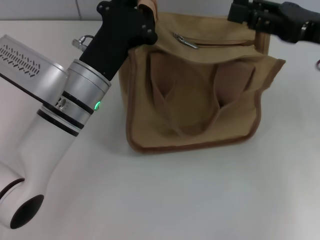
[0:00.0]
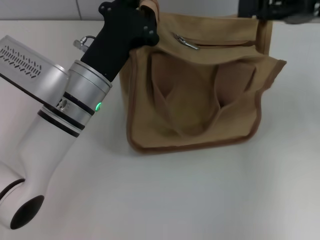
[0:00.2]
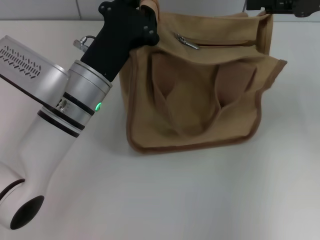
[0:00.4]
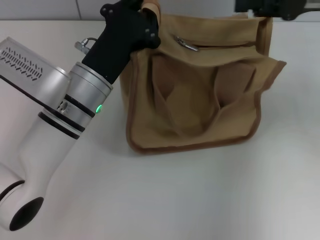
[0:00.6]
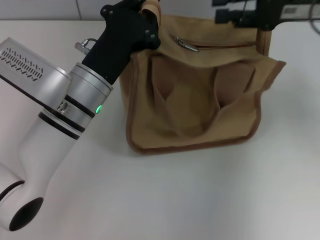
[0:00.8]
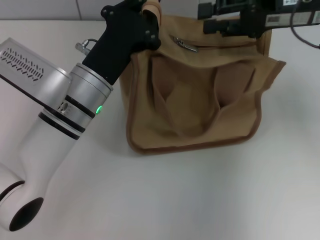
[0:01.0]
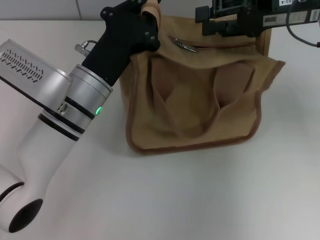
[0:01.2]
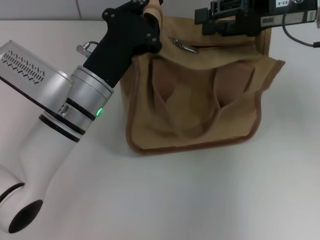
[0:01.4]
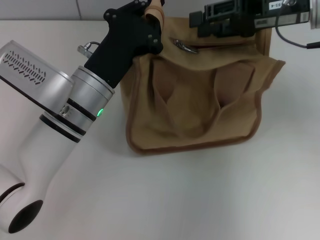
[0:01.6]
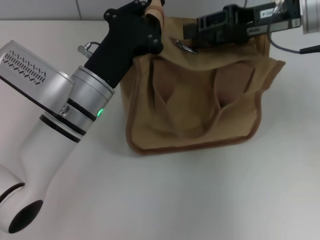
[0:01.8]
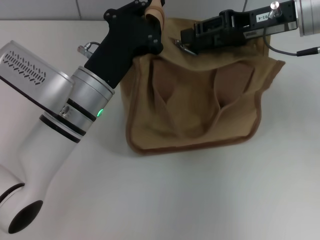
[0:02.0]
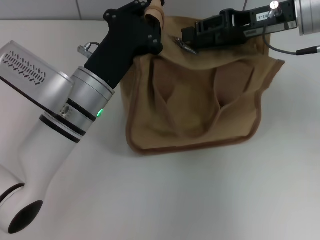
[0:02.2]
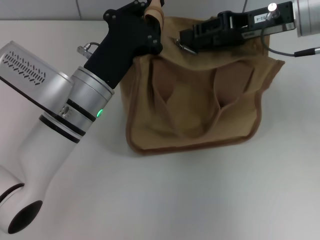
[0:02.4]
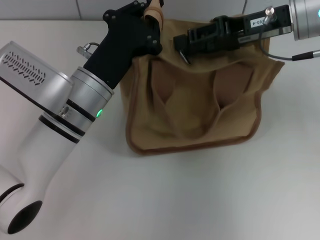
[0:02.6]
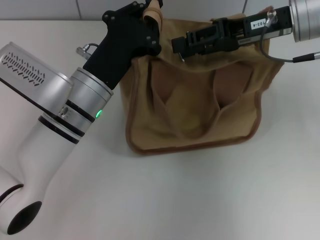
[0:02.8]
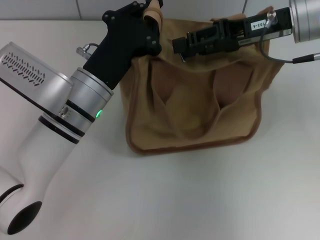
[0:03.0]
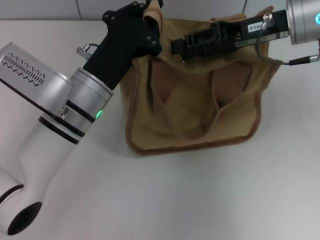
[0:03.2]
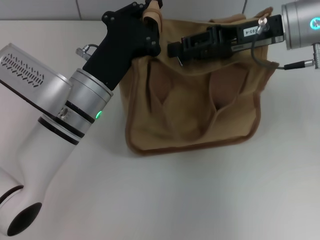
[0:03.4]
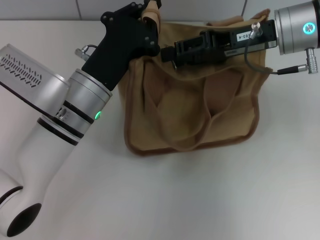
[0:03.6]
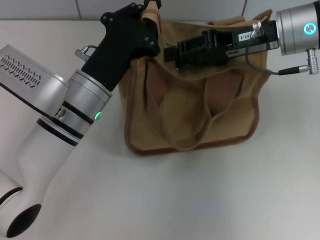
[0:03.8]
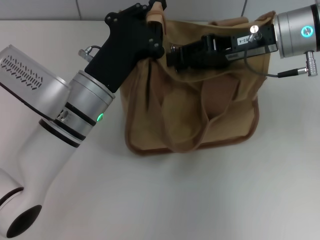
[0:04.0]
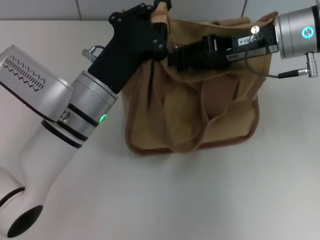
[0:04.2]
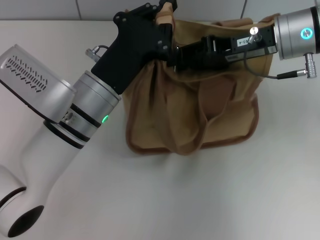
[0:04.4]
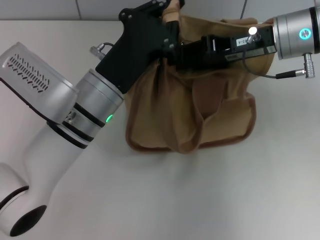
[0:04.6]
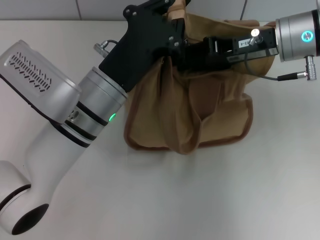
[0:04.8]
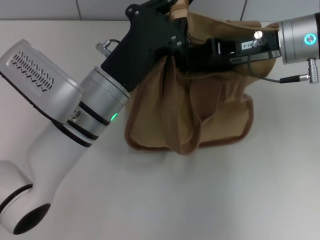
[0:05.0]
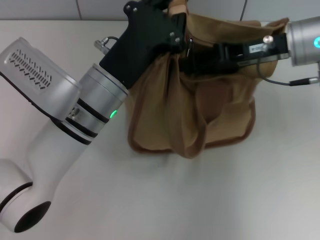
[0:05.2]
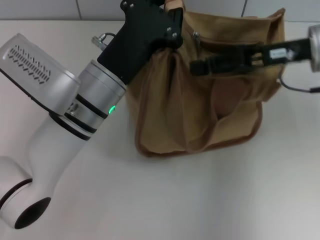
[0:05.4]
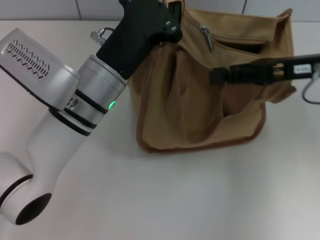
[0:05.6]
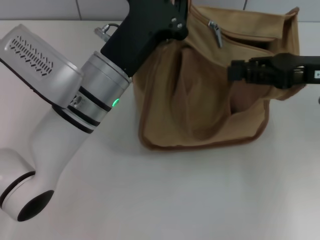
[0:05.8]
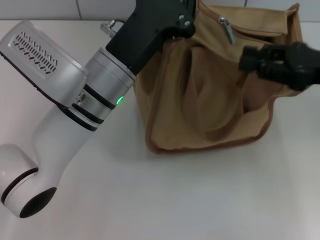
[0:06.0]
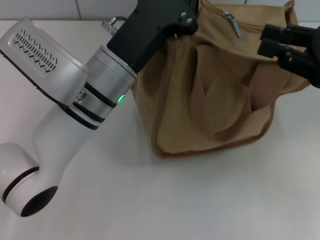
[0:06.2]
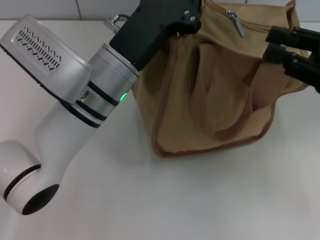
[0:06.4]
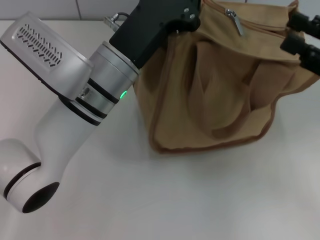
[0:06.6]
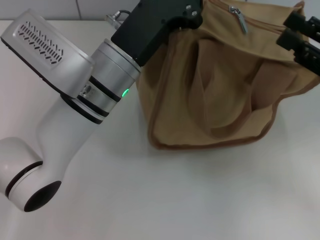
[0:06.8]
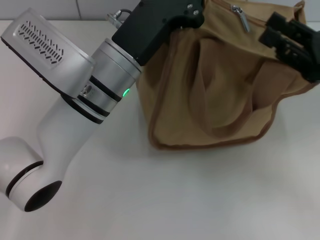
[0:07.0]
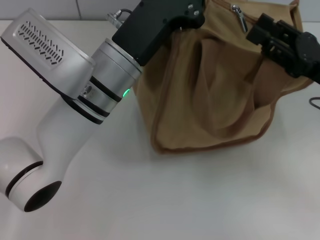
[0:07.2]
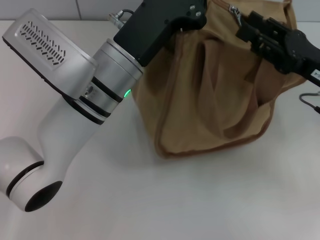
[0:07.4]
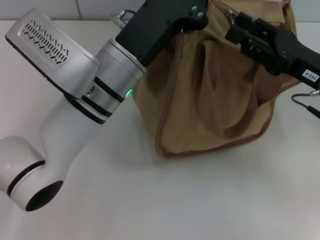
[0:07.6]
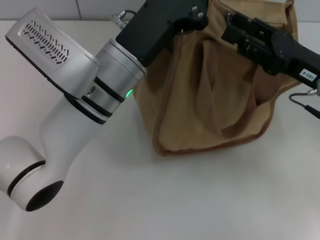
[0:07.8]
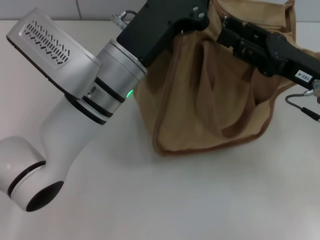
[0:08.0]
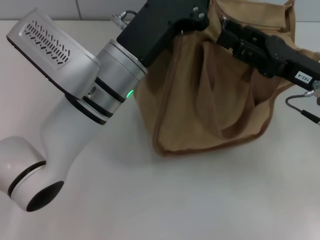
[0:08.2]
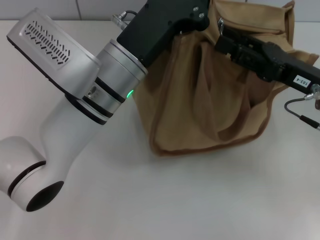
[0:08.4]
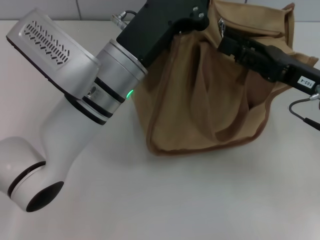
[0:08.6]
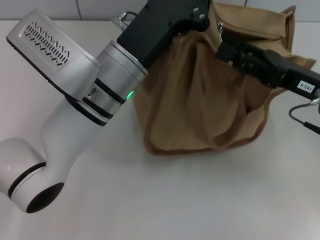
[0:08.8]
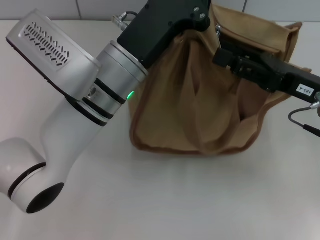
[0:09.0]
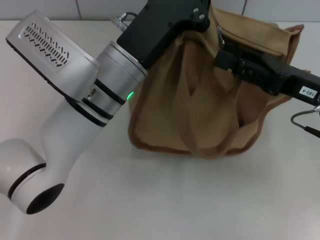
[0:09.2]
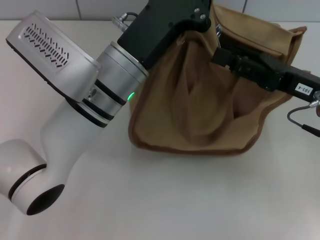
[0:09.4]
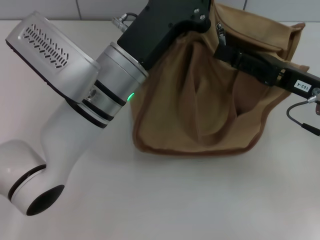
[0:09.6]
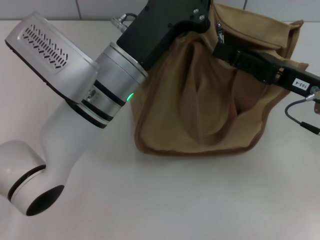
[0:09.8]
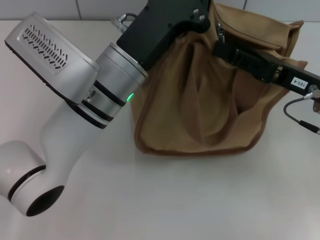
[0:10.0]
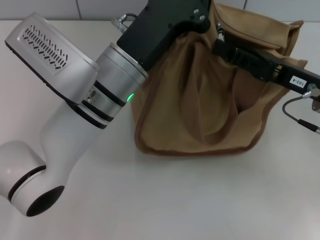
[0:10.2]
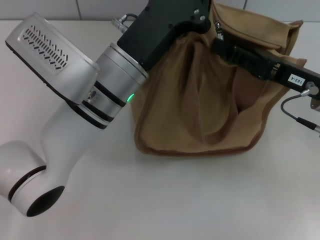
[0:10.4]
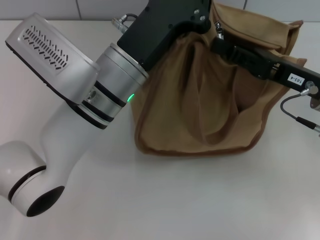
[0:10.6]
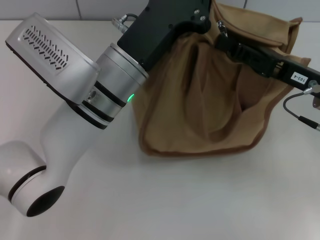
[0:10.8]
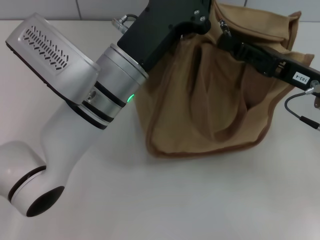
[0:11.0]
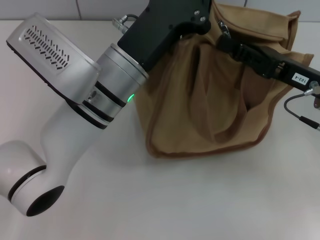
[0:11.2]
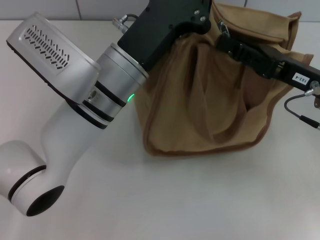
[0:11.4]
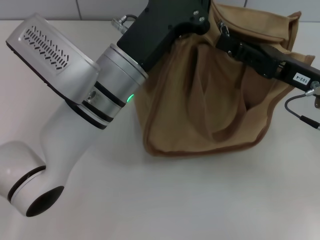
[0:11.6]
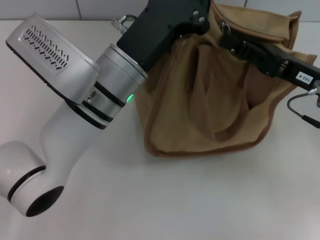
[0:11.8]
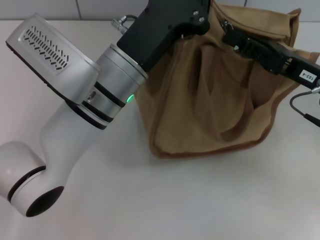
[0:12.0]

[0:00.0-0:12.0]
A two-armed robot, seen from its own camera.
0:00.0 to 0:01.6: The right gripper is displaced forward by some 5 cm.
0:01.6 to 0:04.4: The grippers stay close to where they were, moving slightly.
0:04.4 to 0:06.0: The right gripper is displaced to the right and backward by some 15 cm.
0:06.0 to 0:07.6: The right gripper shifts roughly 5 cm downward.
0:07.6 to 0:10.4: The grippers move only a little.
0:10.4 to 0:12.0: Both grippers stay about where they are.

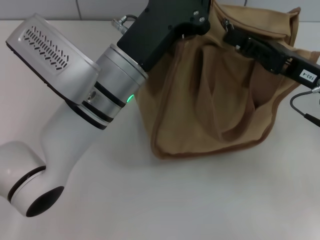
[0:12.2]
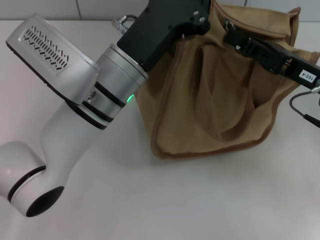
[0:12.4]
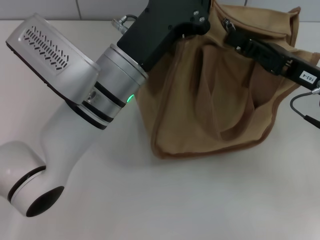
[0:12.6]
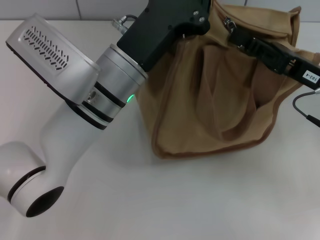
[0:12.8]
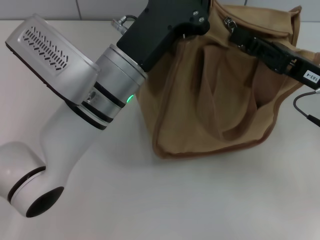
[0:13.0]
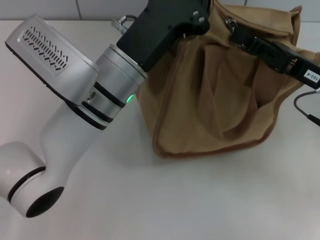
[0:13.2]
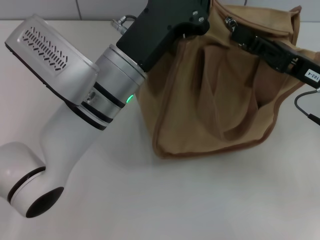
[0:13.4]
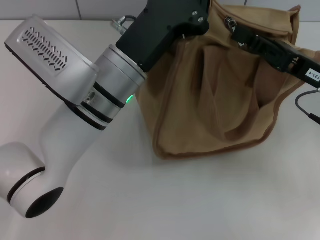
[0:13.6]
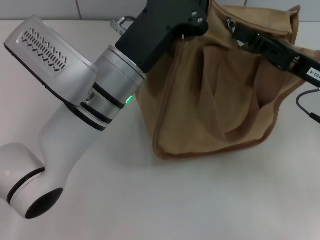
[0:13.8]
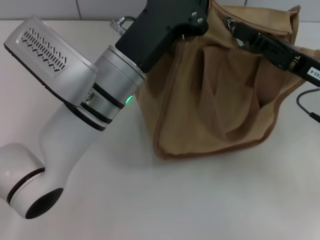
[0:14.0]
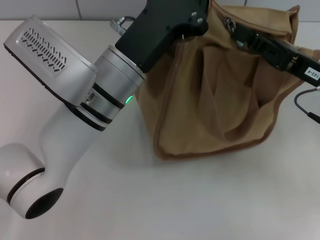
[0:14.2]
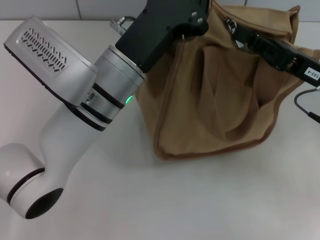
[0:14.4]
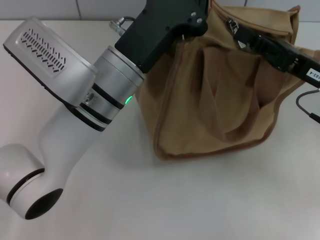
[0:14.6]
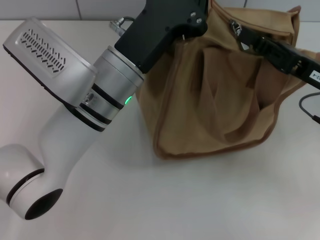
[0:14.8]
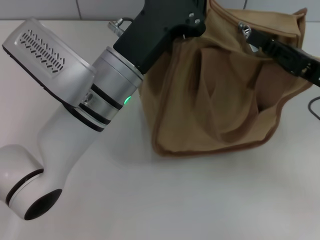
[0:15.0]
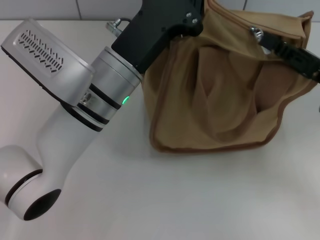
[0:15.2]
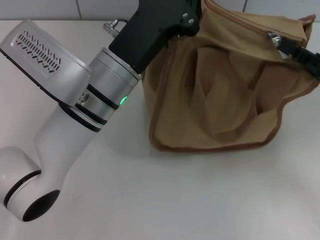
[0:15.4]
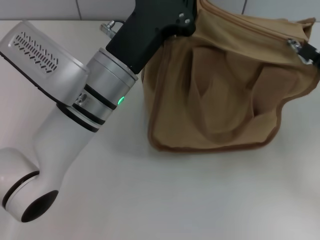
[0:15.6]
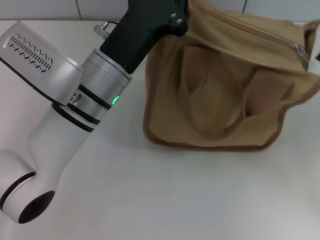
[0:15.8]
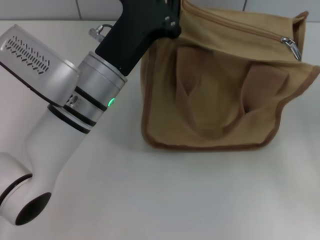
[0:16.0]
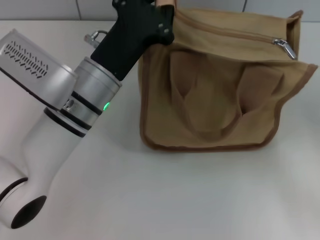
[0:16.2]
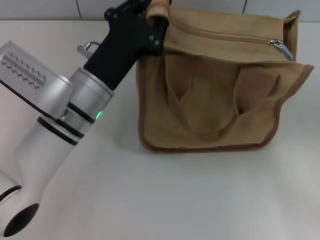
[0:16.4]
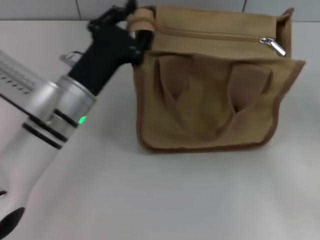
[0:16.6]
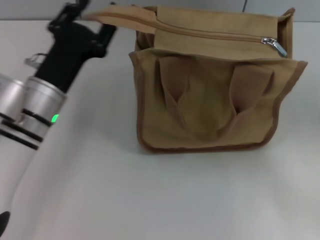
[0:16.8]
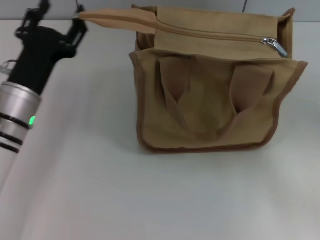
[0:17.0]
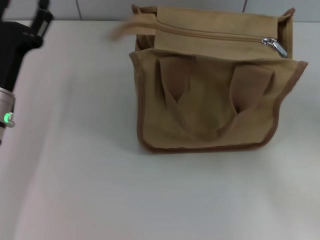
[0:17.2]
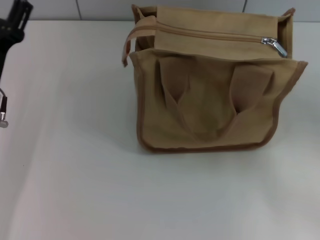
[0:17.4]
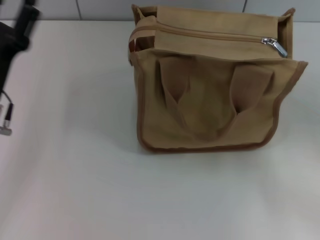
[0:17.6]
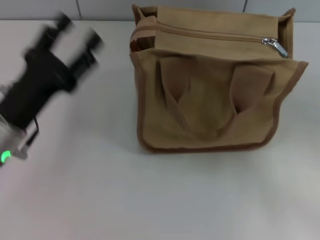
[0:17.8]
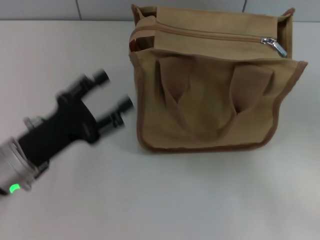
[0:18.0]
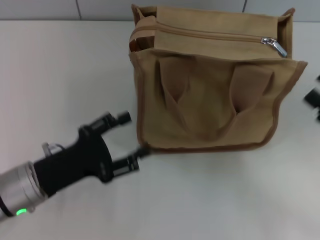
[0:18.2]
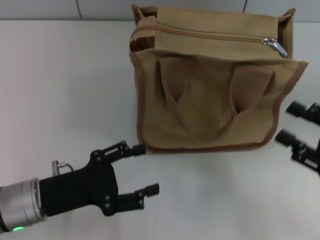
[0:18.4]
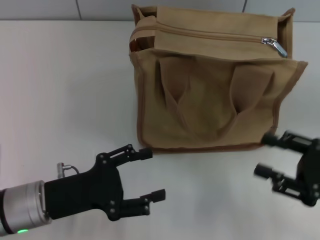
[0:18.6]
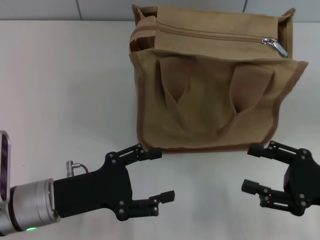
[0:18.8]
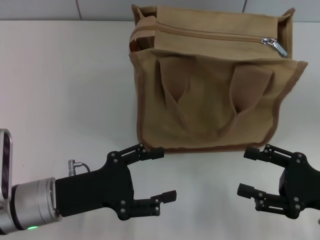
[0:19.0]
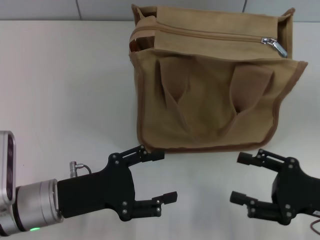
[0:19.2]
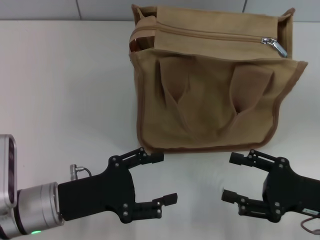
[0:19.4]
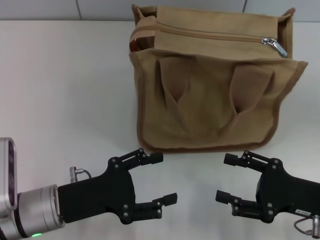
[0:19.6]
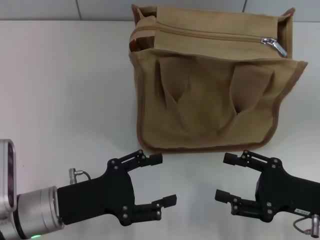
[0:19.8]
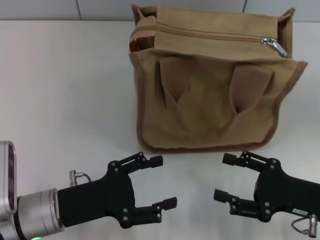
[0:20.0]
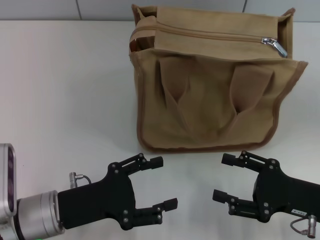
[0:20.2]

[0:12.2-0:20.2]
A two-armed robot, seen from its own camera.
Step, 0:12.2 to 0:15.6: Pull up the zipper with your right hand.
Step, 0:15.8 to 0:17.0: Grab the zipper with your left hand.
0:12.2 to 0:13.8: Both grippers stay about where they are.
0:13.8 to 0:15.4: The right gripper heads to the right, covering roughly 5 cm.
0:15.4 to 0:17.0: The right gripper moves backward, some 5 cm, and opens; the left gripper goes approximately 15 cm to the left and downward, and opens.
0:17.0 to 0:18.6: The right gripper moves roughly 5 cm. Meanwhile the left gripper is displaced backward by some 10 cm, and opens.
0:18.6 to 0:20.2: The right gripper ends up roughly 5 cm from where it was.

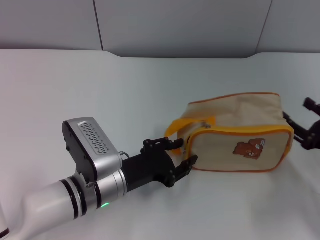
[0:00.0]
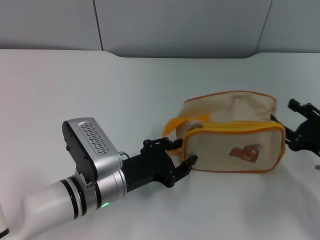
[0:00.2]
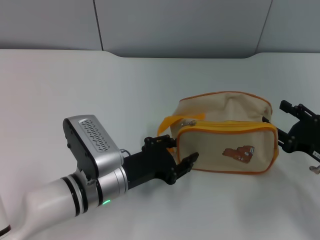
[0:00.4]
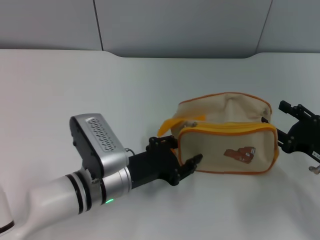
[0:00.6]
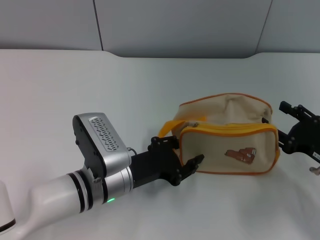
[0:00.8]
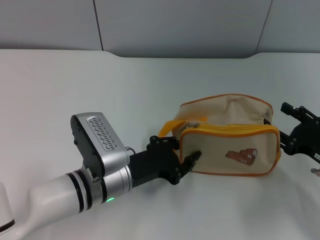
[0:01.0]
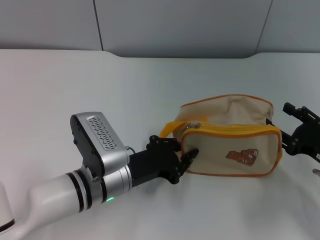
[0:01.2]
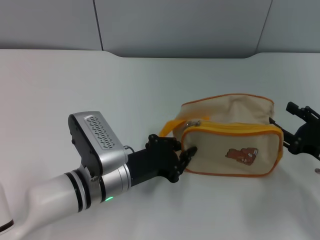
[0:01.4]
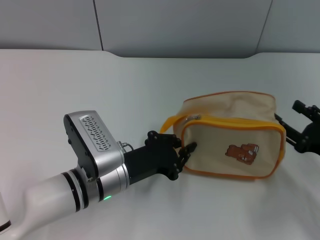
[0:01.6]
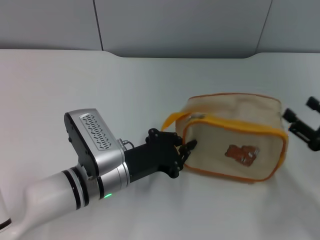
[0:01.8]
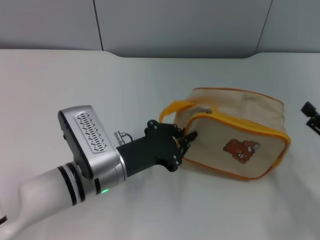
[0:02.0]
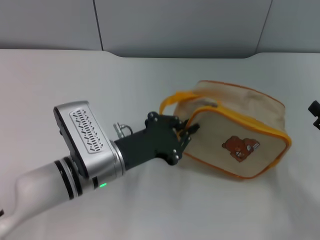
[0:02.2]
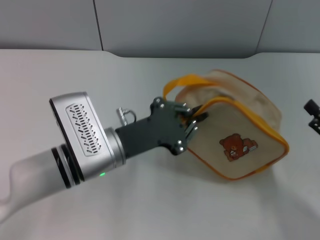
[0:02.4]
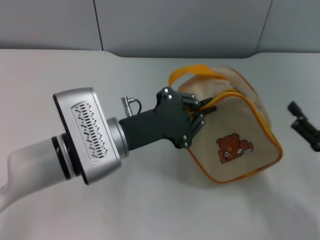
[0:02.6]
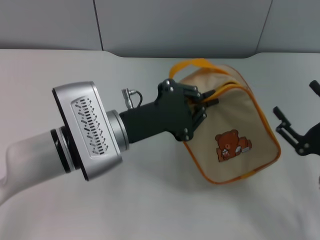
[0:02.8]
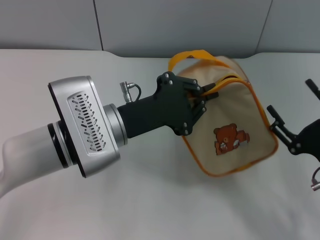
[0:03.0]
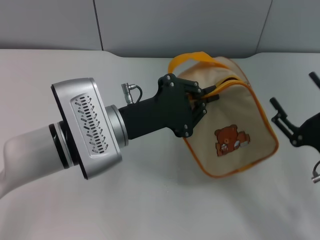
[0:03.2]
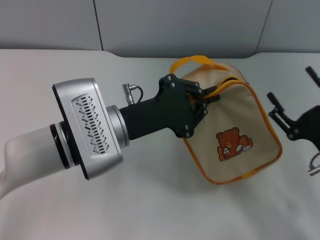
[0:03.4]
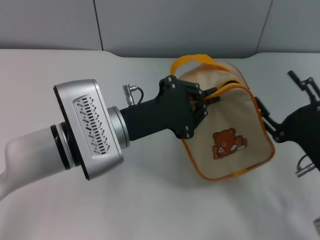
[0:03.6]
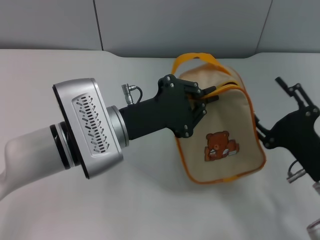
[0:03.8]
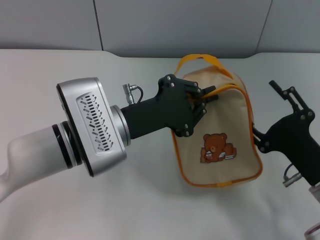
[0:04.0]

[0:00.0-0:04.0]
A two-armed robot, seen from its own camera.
Step, 0:00.0 to 0:02.4: Pick up the bag with left gripper.
0:00.0 to 0:01.4: There are only small adjustments of the grippers.
0:01.4 to 0:02.6: The left gripper heads upward, covering roughly 5 cm.
0:02.6 to 0:04.0: The right gripper goes roughly 5 cm to the left.
